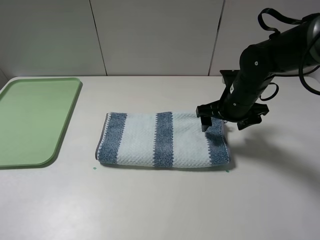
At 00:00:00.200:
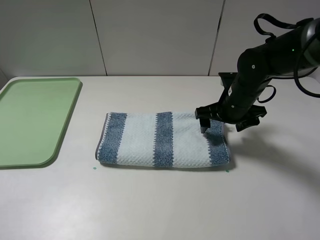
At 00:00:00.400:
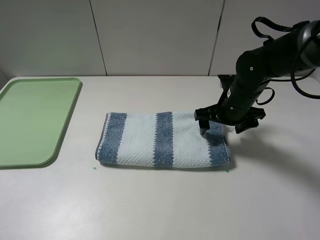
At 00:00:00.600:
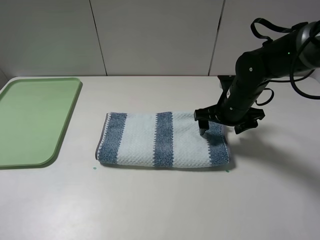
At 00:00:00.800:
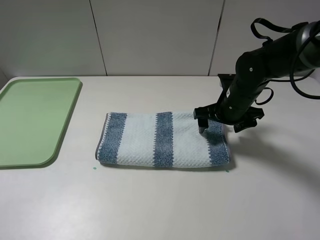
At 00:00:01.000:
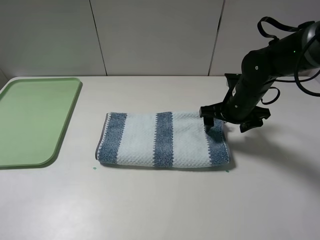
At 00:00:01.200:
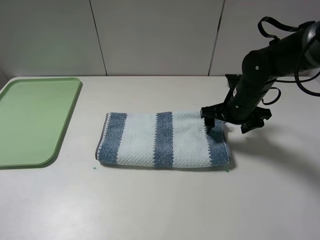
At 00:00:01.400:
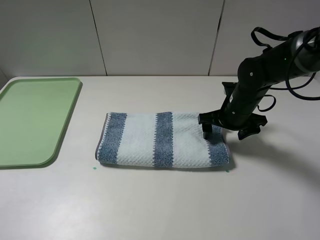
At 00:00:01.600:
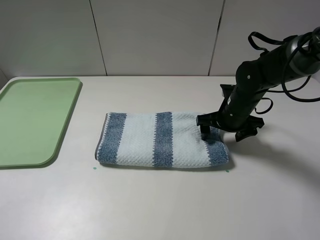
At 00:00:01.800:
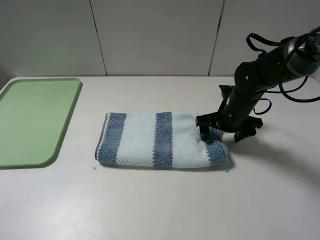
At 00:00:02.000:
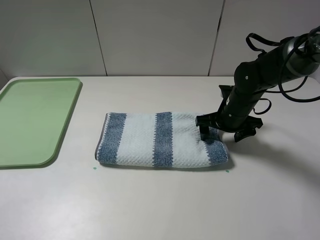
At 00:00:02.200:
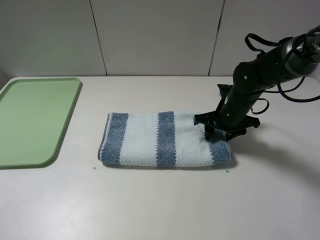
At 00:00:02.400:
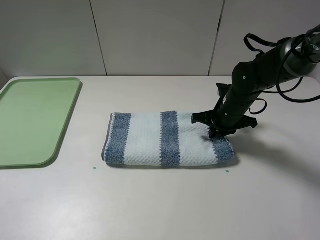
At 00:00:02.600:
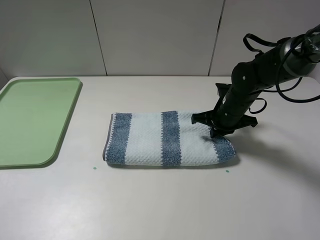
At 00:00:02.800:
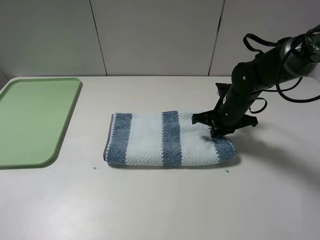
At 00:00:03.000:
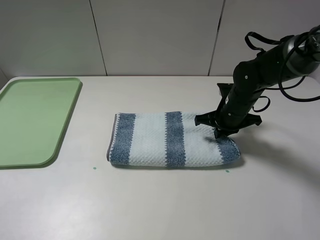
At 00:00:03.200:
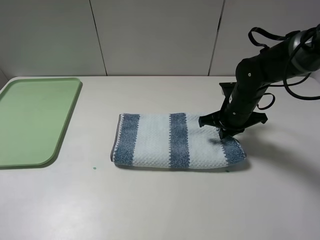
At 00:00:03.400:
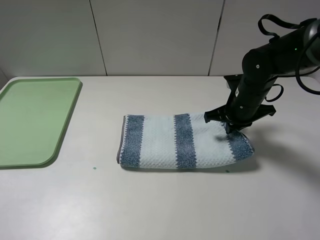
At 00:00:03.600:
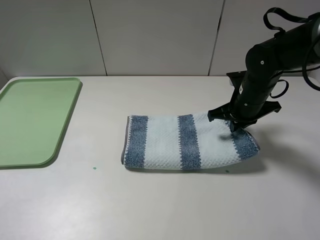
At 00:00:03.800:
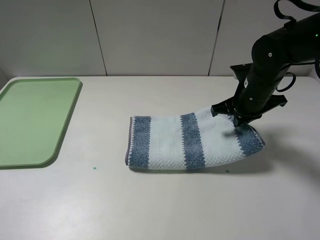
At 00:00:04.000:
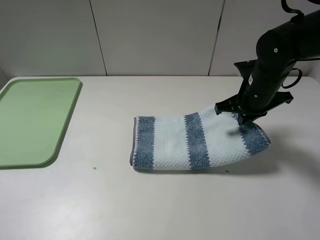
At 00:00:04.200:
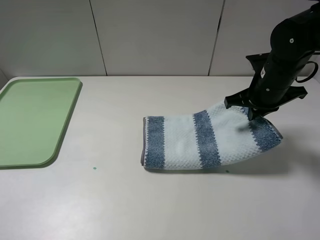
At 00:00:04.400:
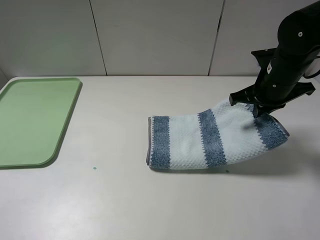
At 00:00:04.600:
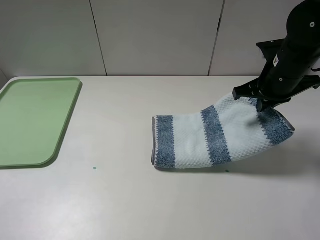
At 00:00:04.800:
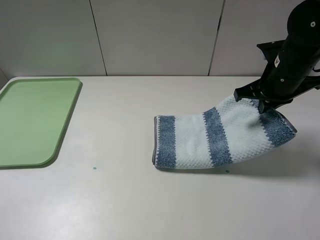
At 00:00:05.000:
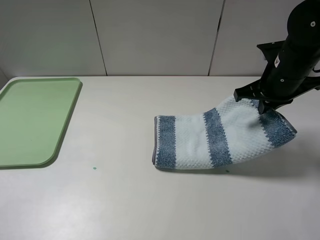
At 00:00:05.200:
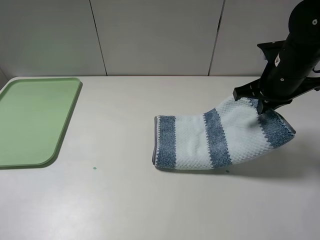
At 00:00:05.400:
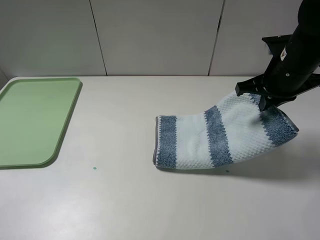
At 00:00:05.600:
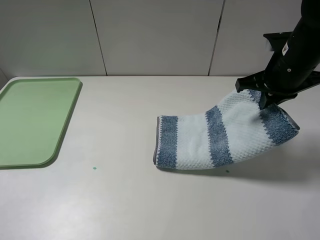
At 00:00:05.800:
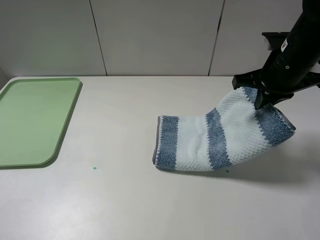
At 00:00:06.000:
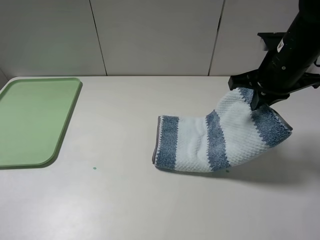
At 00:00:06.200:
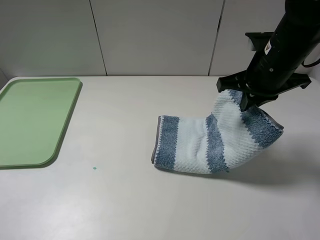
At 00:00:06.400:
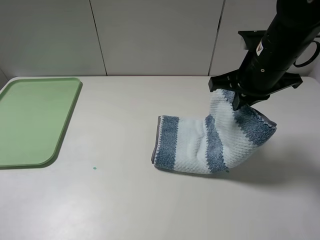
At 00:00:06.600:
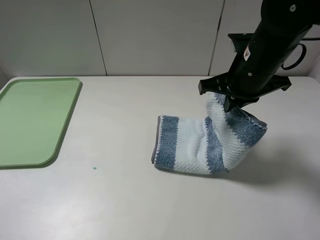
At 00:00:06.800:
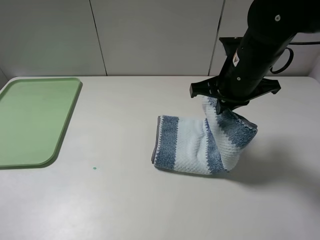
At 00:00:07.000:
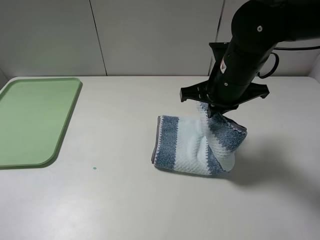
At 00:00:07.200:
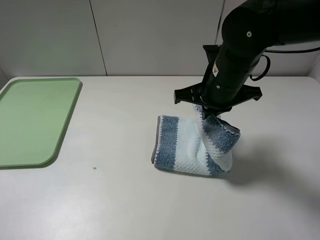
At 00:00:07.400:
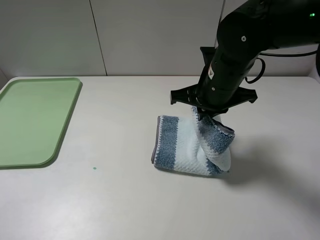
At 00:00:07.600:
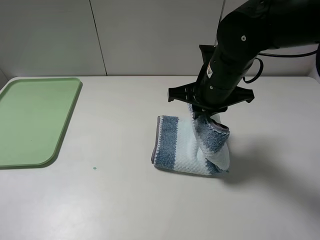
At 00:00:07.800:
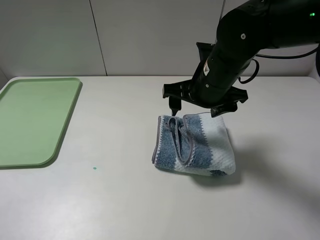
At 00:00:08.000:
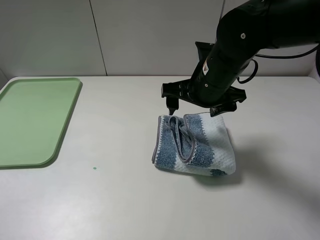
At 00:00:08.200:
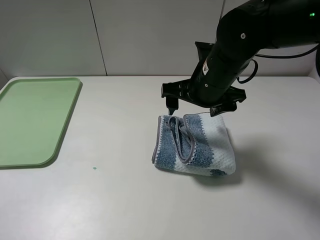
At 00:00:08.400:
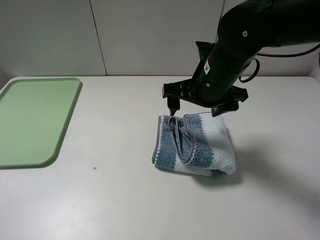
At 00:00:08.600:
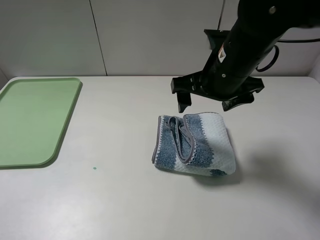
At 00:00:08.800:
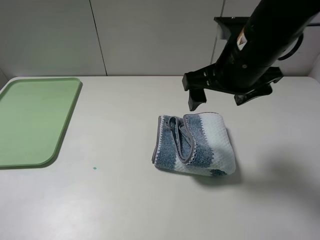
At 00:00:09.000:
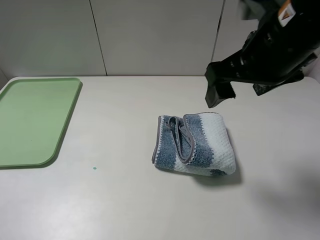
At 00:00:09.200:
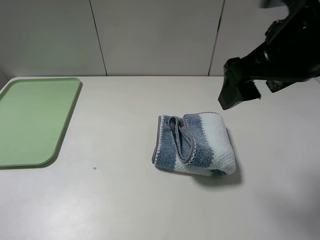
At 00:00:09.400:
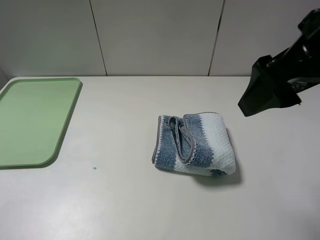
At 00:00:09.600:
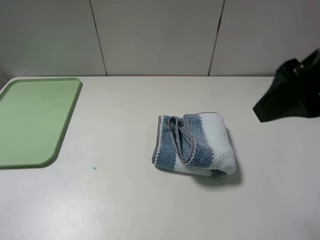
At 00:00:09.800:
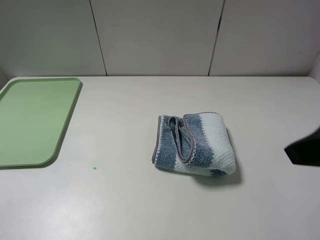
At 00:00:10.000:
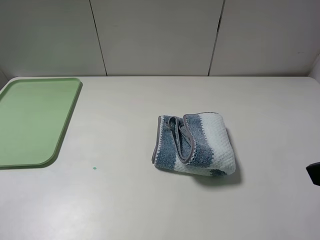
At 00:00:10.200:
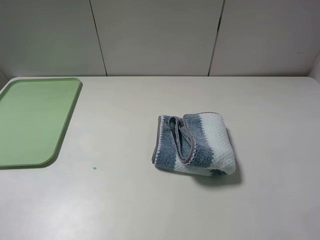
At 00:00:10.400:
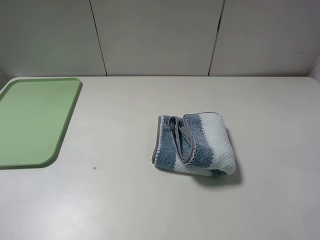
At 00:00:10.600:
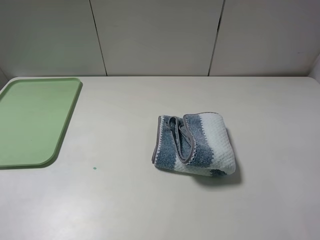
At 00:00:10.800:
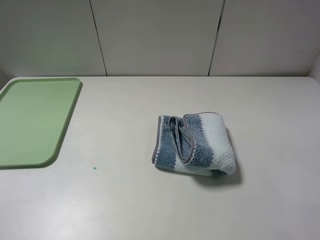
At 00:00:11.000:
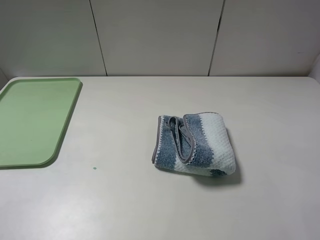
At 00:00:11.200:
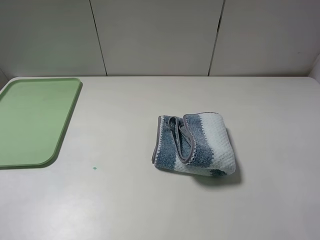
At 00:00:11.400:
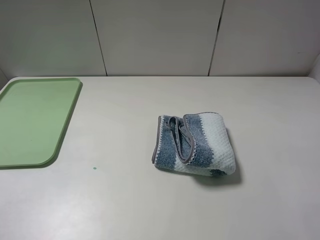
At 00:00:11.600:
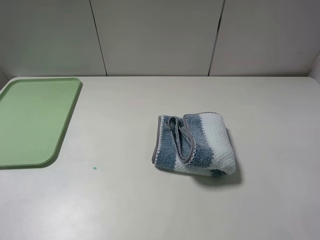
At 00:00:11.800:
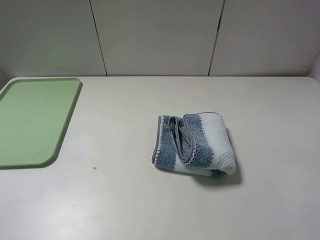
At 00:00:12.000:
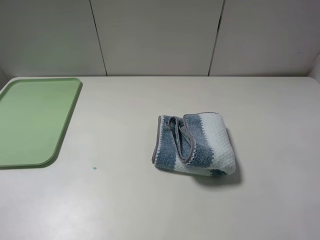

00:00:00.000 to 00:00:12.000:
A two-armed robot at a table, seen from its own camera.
Step, 00:00:00.000 to 00:00:03.000: Grasp the blue white towel with the right gripper.
Step, 00:00:03.200 to 00:00:11.400: Fold the blue white towel from right to left with right gripper.
00:00:00.000 to 00:00:01.600: The grippers move only a little.
00:00:01.600 to 00:00:03.000: The right gripper closes its fingers.
00:00:03.000 to 00:00:04.400: The right gripper is displaced upward by about 10 cm.
00:00:04.400 to 00:00:06.000: The grippers stay close to where they were, moving slightly.
00:00:06.000 to 00:00:07.600: The right gripper goes about 10 cm to the left.
00:00:07.600 to 00:00:09.000: The right gripper moves upward and backward, about 15 cm, and opens.
00:00:09.000 to 00:00:10.400: The right gripper is displaced backward and to the right by about 25 cm.

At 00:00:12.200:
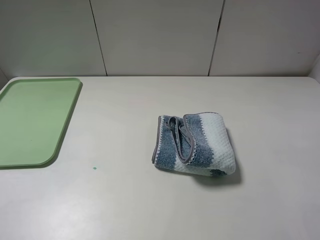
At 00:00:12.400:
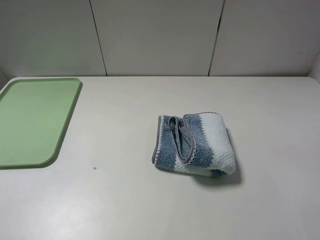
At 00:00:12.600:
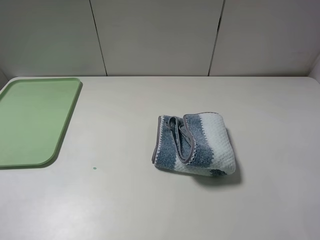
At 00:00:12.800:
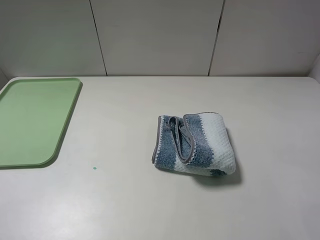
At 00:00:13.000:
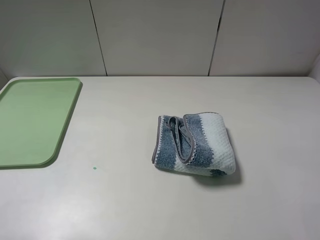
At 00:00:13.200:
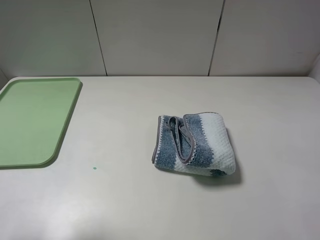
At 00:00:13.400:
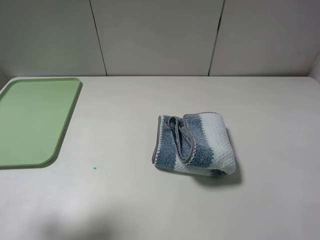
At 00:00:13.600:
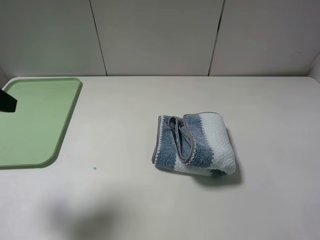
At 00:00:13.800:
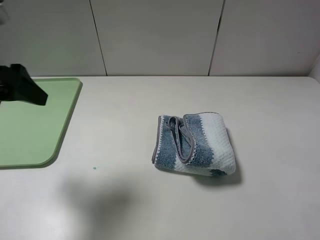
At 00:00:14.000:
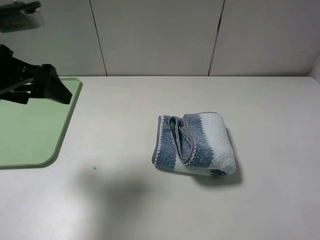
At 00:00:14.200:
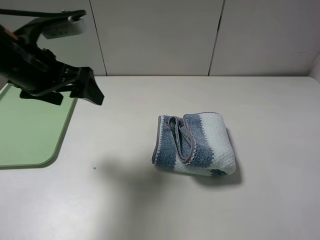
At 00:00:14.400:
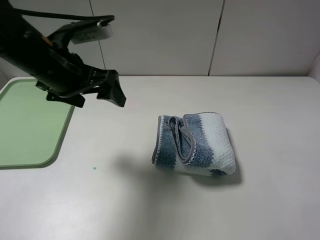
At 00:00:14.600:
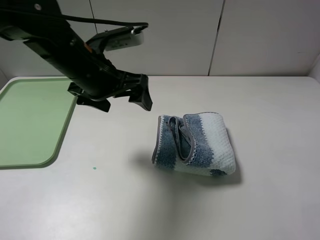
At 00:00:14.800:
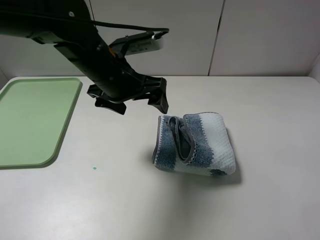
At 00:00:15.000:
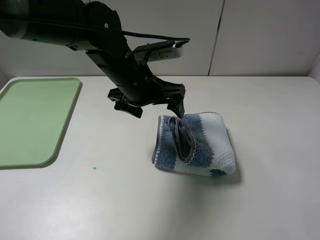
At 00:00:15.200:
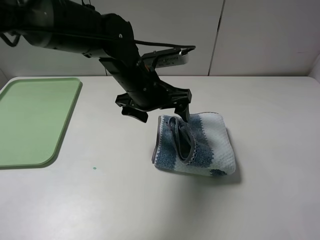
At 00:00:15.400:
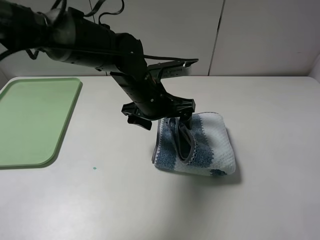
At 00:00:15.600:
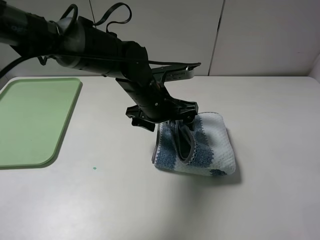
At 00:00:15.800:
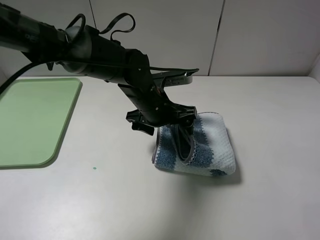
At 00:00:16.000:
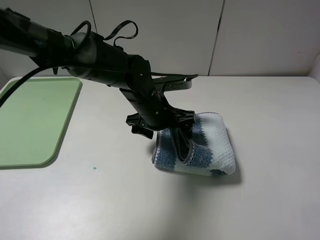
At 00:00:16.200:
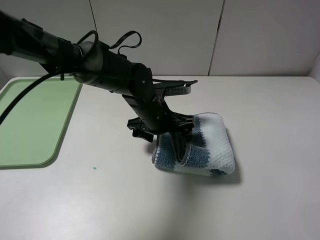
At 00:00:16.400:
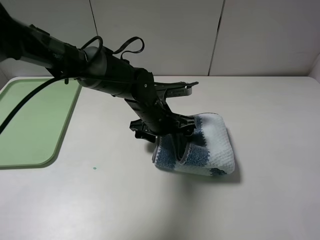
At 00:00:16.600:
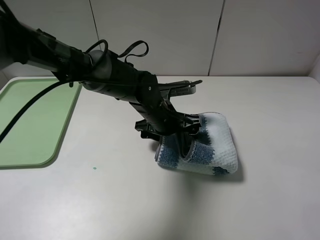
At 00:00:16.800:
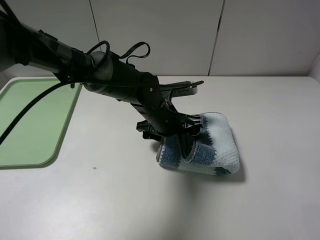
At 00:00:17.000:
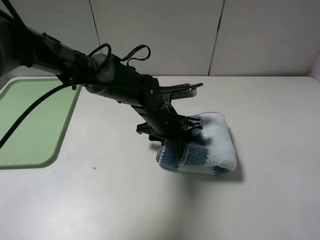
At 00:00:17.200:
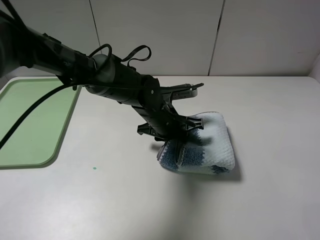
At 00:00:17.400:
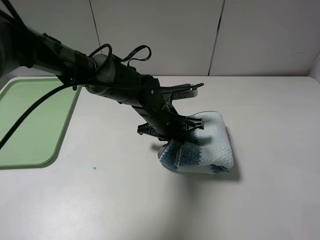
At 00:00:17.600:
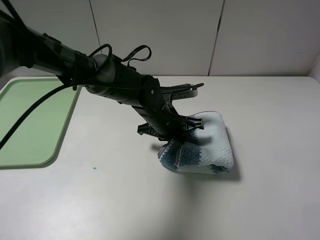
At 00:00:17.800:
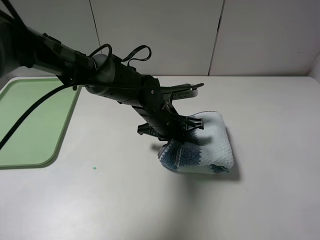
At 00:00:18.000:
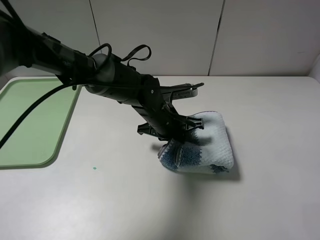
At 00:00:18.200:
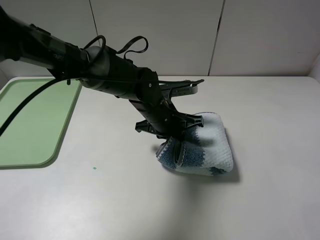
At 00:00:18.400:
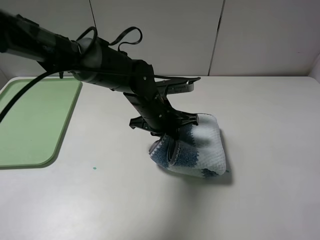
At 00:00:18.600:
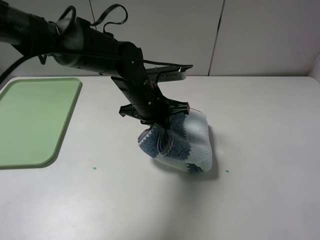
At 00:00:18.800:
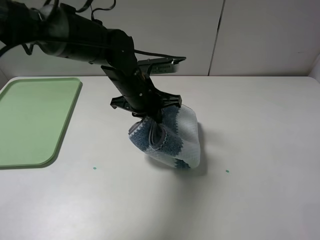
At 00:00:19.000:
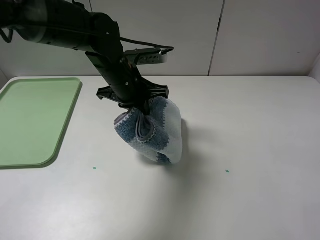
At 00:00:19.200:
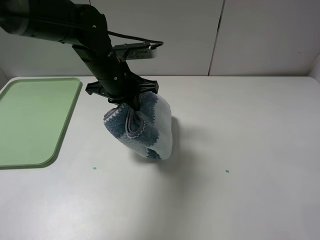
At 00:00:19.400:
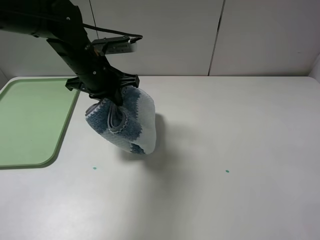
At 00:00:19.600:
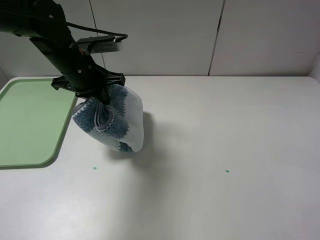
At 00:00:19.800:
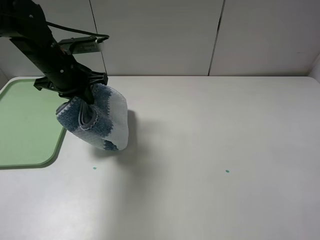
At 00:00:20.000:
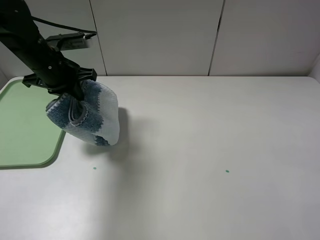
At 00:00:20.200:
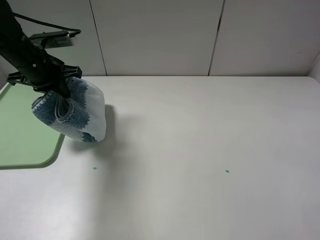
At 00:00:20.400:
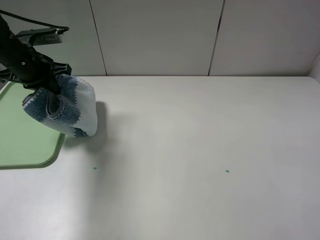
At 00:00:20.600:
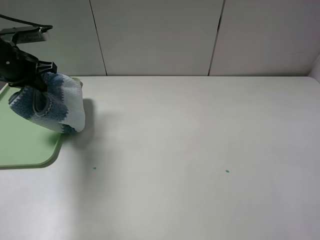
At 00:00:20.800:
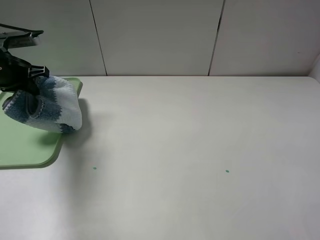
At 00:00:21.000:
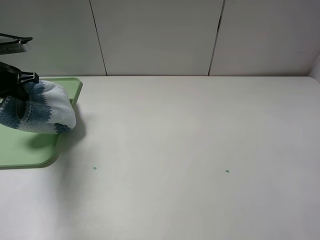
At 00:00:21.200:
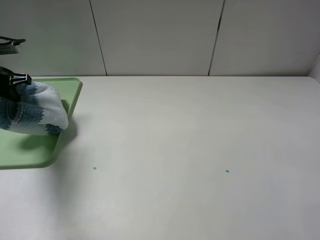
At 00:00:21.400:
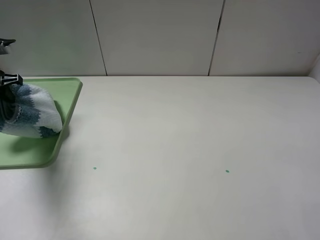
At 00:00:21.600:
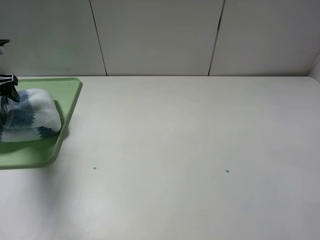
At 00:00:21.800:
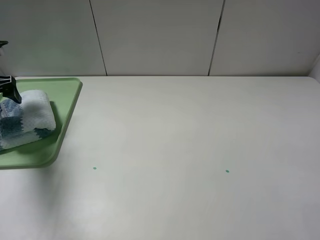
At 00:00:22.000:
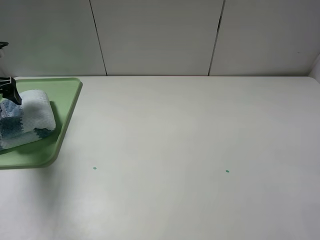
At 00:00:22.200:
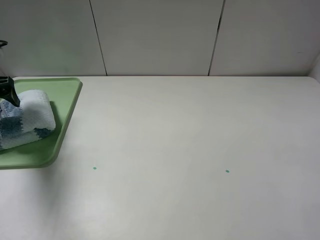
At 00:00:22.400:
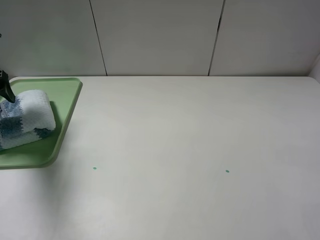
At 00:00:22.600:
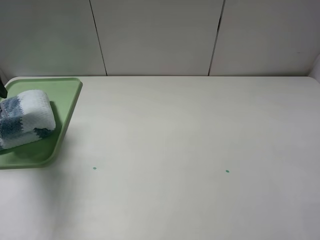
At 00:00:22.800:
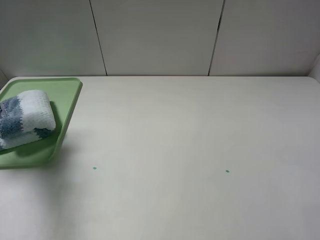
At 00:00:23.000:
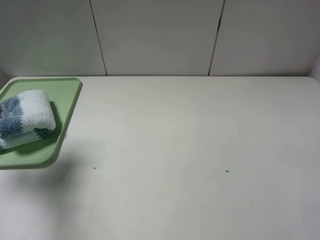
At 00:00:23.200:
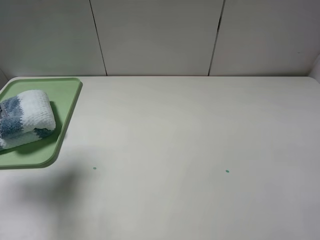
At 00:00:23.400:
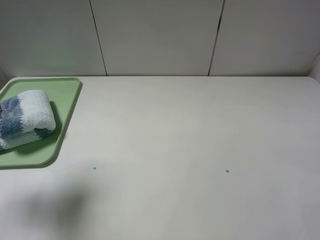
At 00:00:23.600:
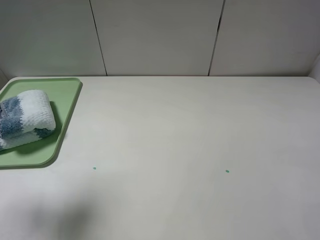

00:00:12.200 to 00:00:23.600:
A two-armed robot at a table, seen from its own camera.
Step, 00:00:12.200 to 00:00:17.600: Grasp the blue white towel with the left gripper.
00:00:12.200 to 00:00:13.600: The left gripper travels forward by some 15 cm.
00:00:13.600 to 00:00:15.000: The left gripper moves to the right and forward, approximately 30 cm.
00:00:15.000 to 00:00:16.400: The left gripper moves downward, about 10 cm.
00:00:16.400 to 00:00:17.800: The left gripper closes up.
00:00:17.800 to 00:00:19.400: The left gripper moves to the left and upward, approximately 20 cm.
00:00:19.400 to 00:00:20.800: The left gripper shifts about 20 cm to the left.
00:00:20.800 to 00:00:22.200: The left gripper moves to the left, about 5 cm, and opens up.
00:00:22.200 to 00:00:23.600: The left gripper moves upward and backward, some 25 cm.
